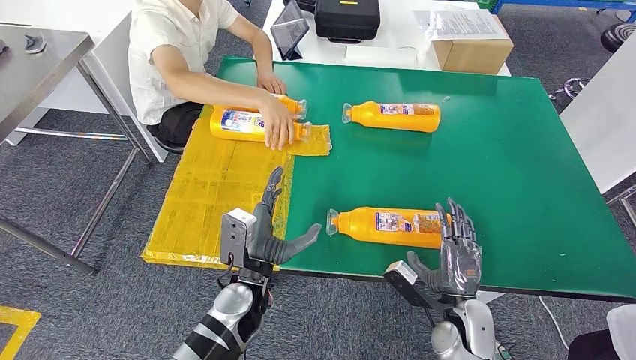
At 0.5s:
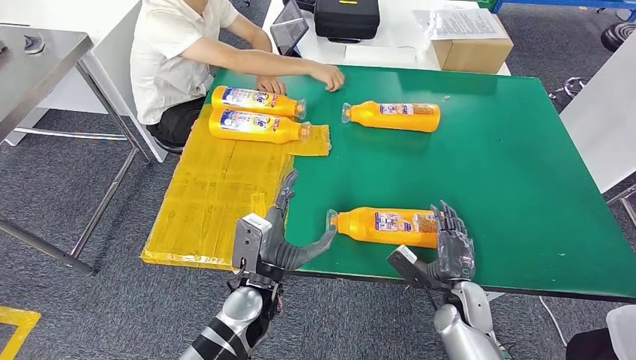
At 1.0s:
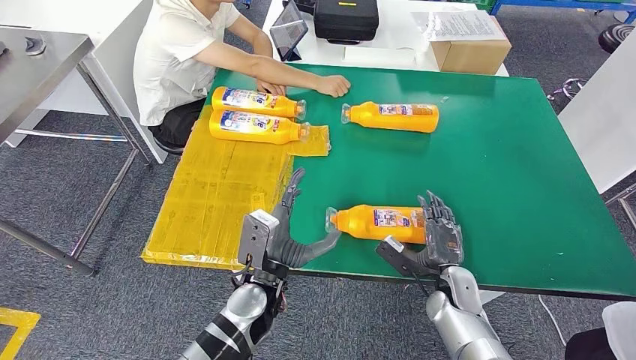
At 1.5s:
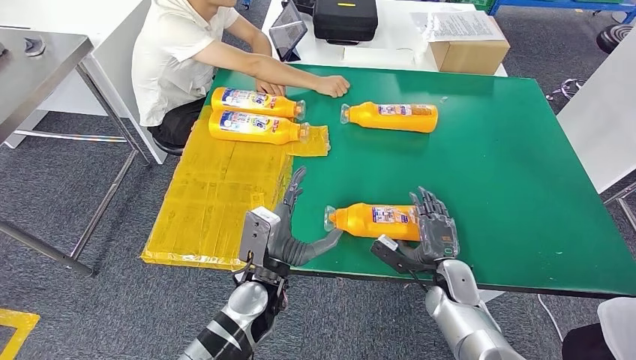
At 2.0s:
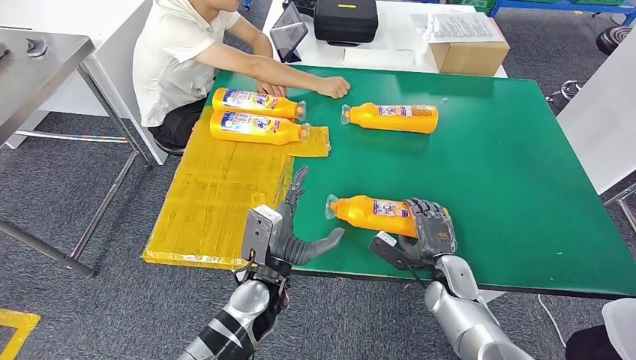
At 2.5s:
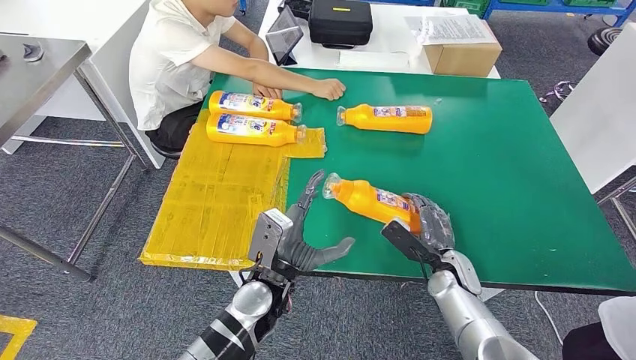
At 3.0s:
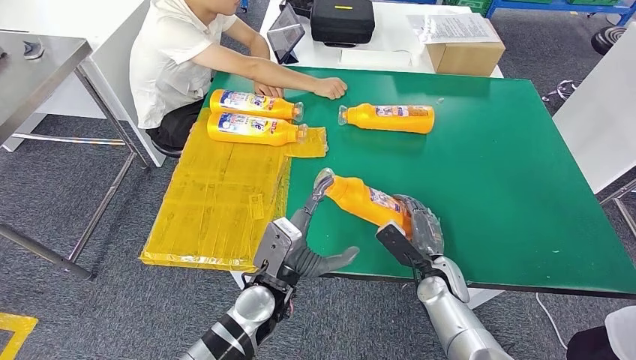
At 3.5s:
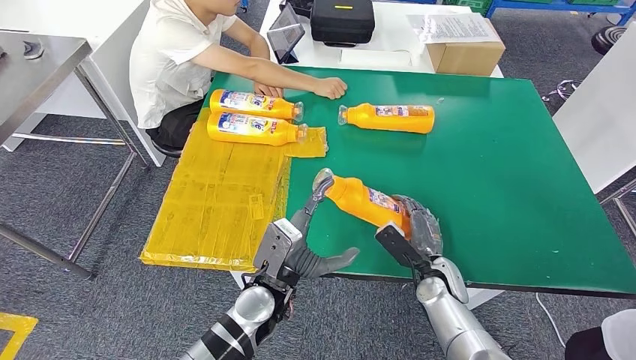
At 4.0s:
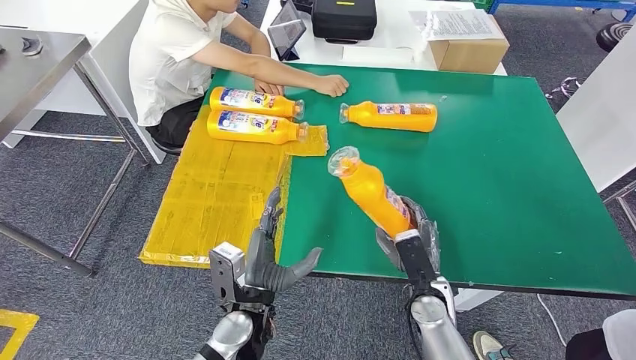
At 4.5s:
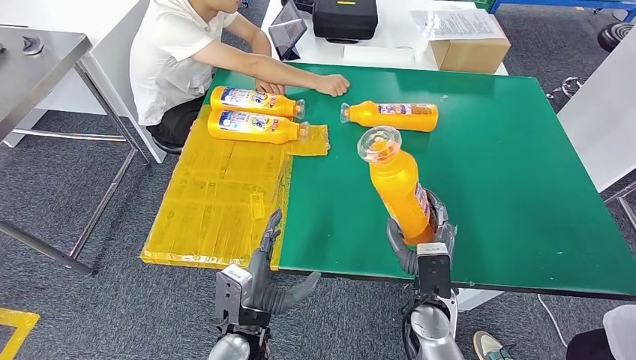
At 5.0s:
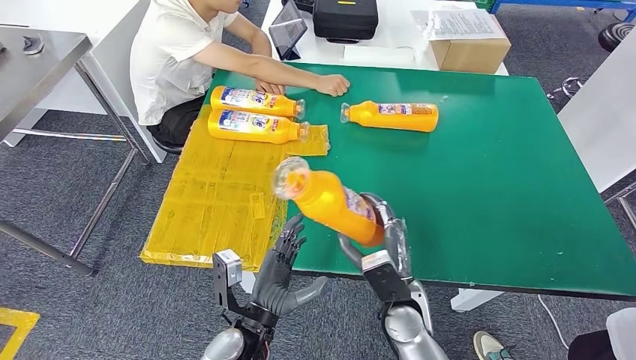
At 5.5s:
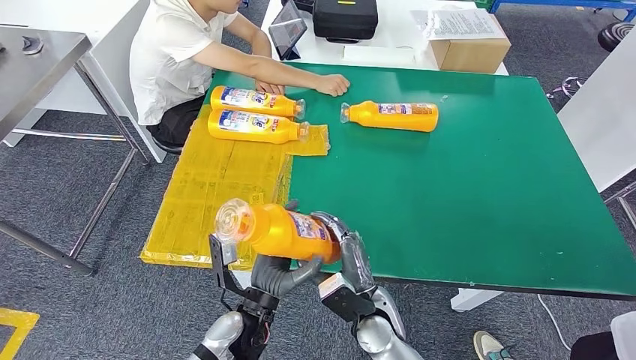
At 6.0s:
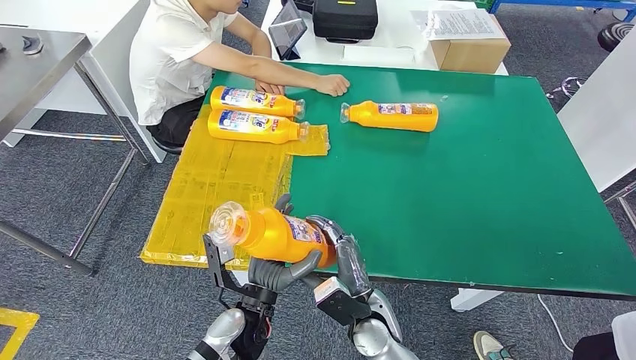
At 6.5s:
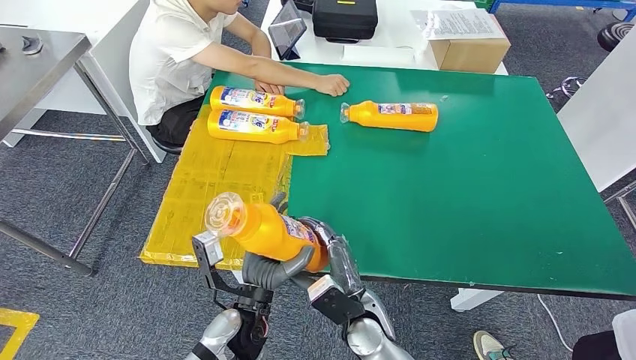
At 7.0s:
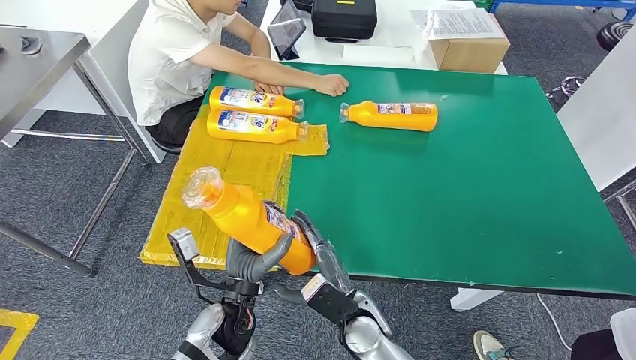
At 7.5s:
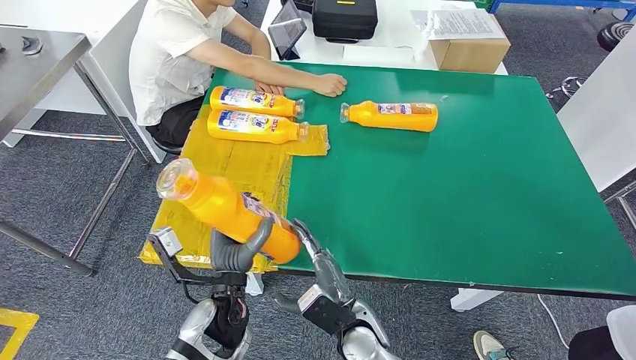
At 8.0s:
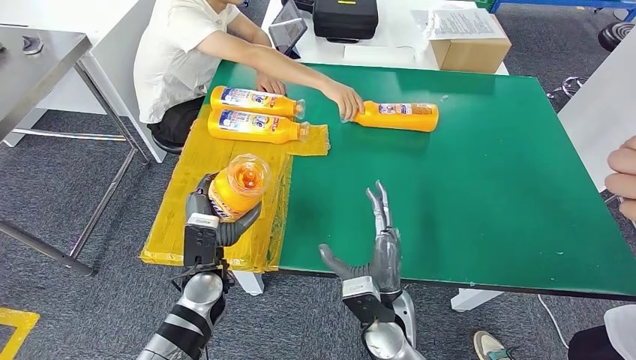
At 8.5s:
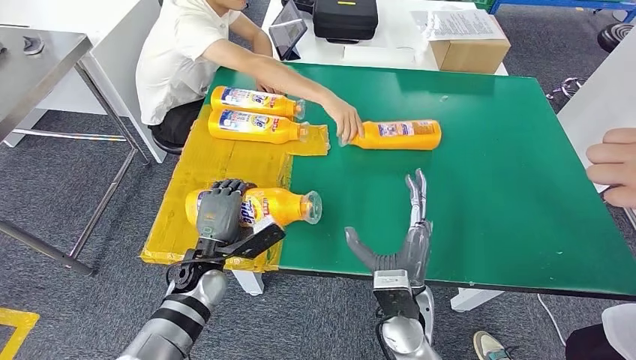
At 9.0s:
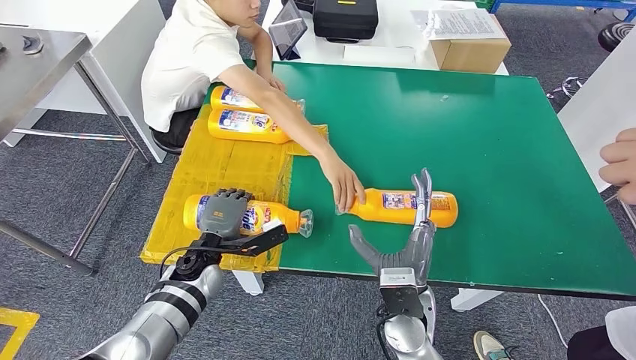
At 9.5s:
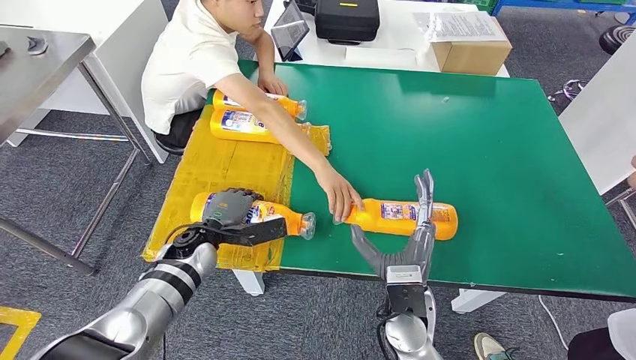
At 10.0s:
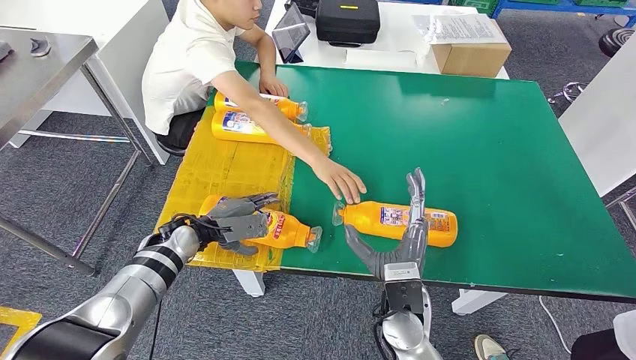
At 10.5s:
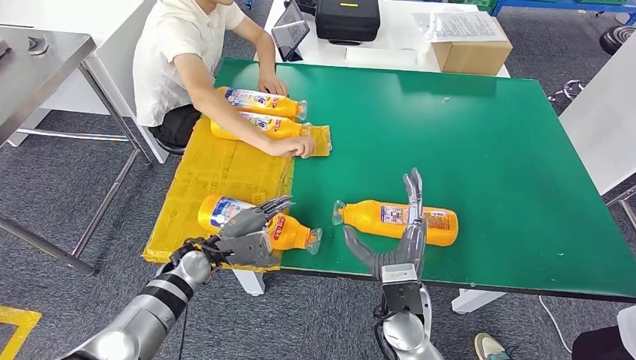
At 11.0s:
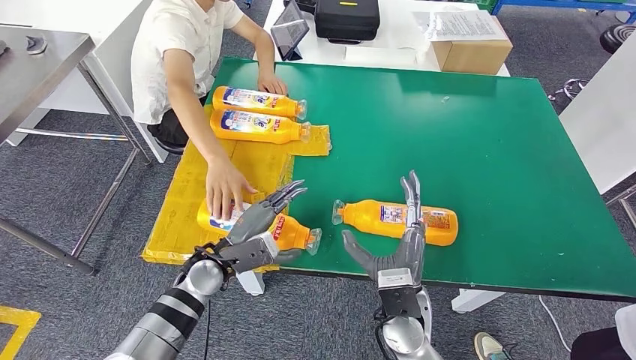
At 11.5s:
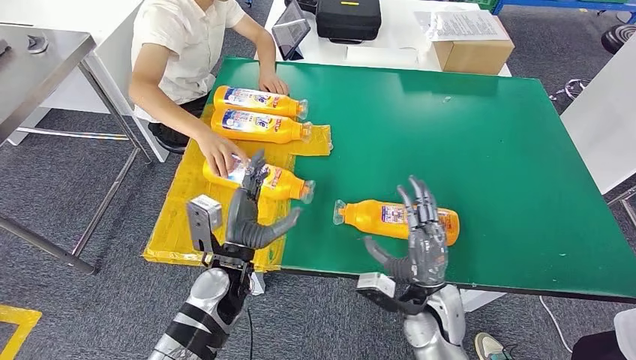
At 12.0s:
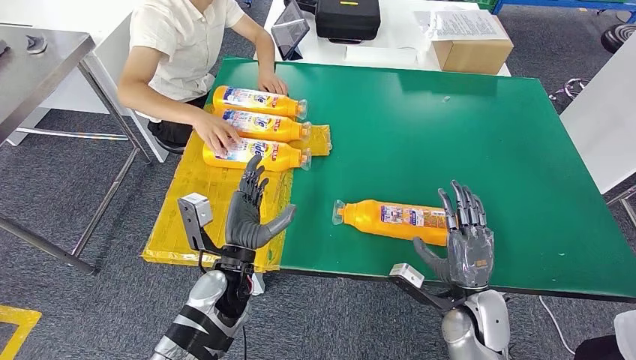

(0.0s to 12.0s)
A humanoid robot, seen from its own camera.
Step, 0.0s - 2.0s: Pick up the fast-moving consumer goods bottle from the table.
Step, 2.5s - 8.5s: Flip the fast-moving consumer goods bottle to the front side.
2.0s - 4.0s: The right hand travels to the left by some 5 cm, while the left hand shifts by some 5 cm.
4.0s - 6.0s: The right hand moves to the left, approximately 10 cm.
6.0s - 8.0s: The left hand moves to the left and forward, about 10 cm.

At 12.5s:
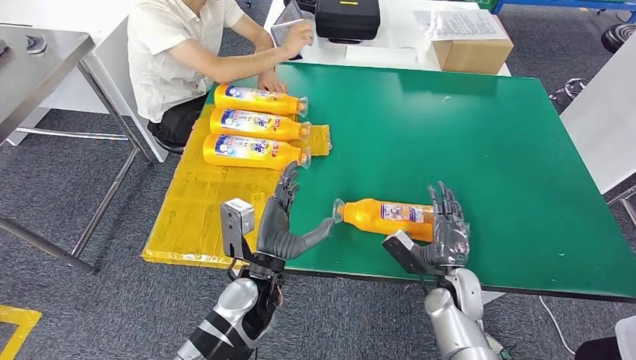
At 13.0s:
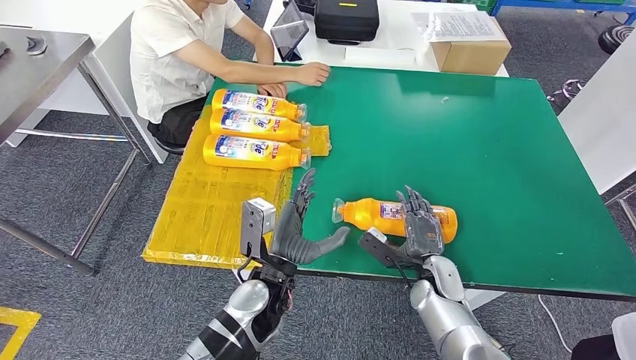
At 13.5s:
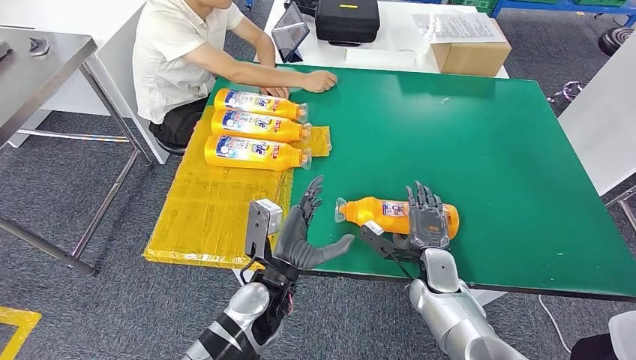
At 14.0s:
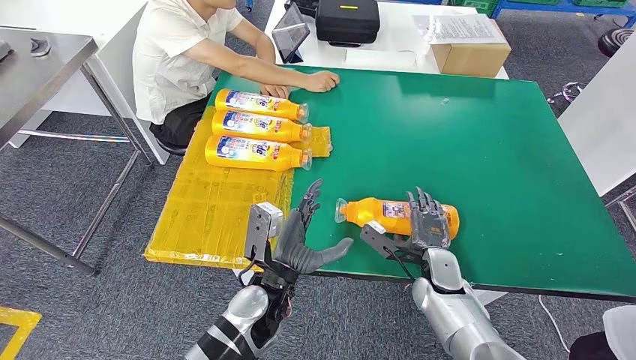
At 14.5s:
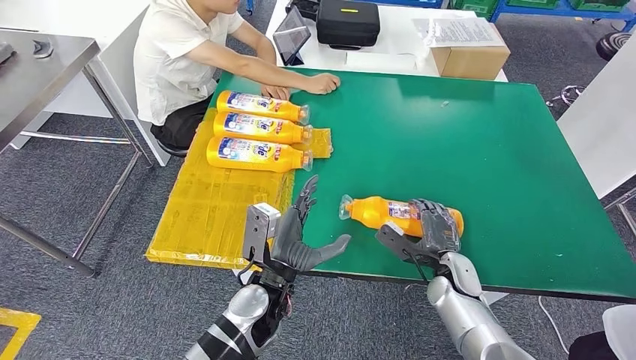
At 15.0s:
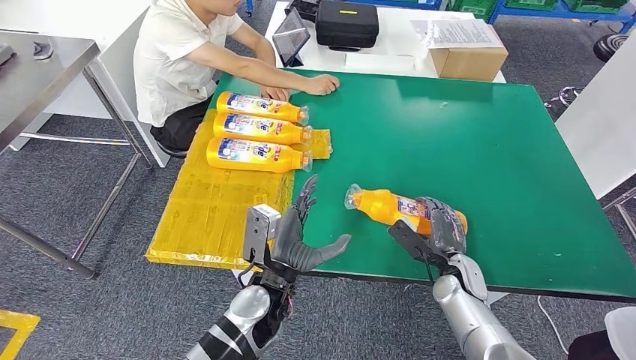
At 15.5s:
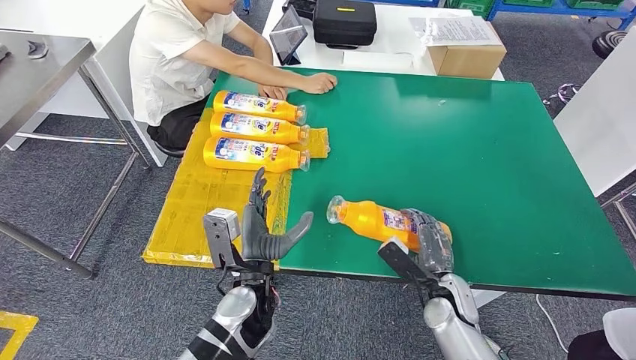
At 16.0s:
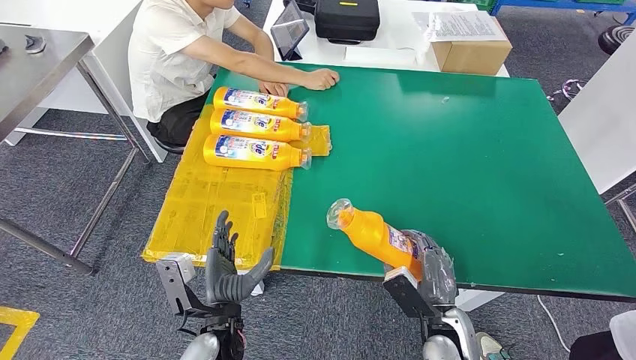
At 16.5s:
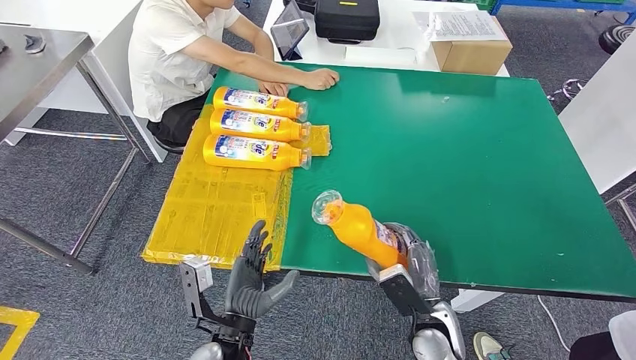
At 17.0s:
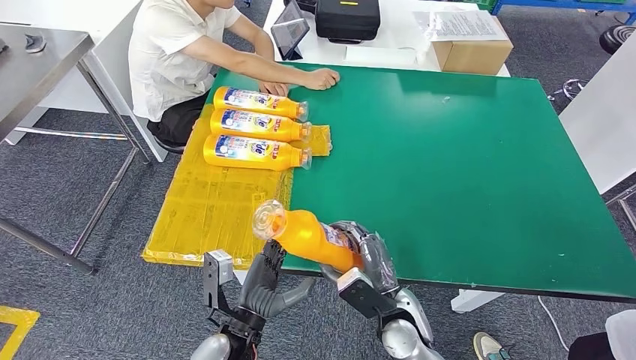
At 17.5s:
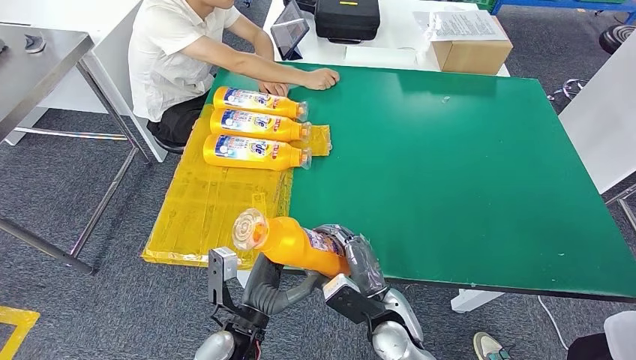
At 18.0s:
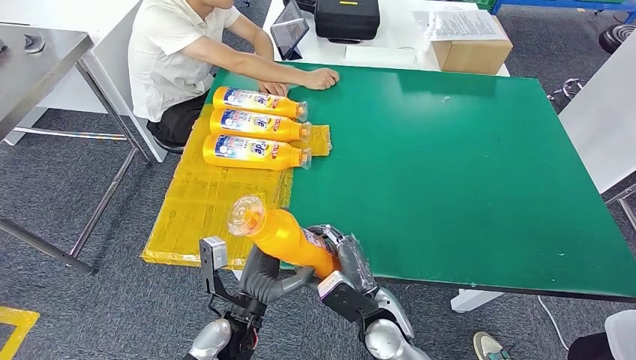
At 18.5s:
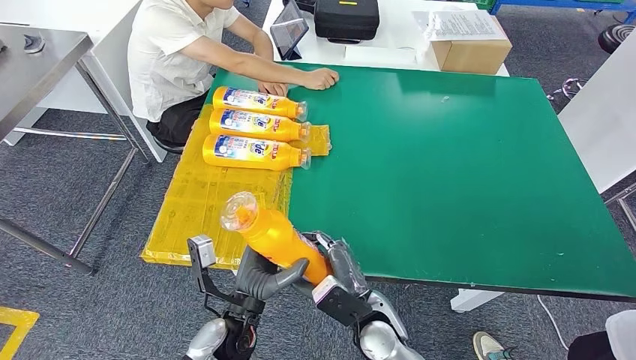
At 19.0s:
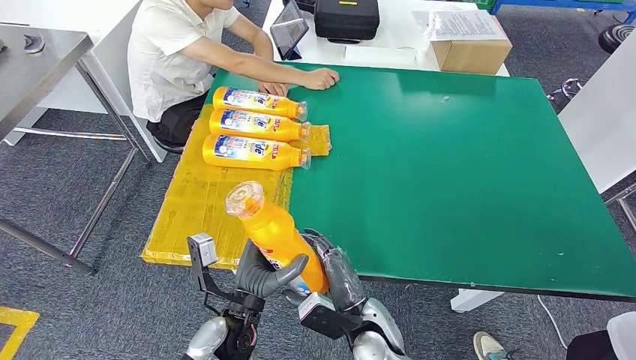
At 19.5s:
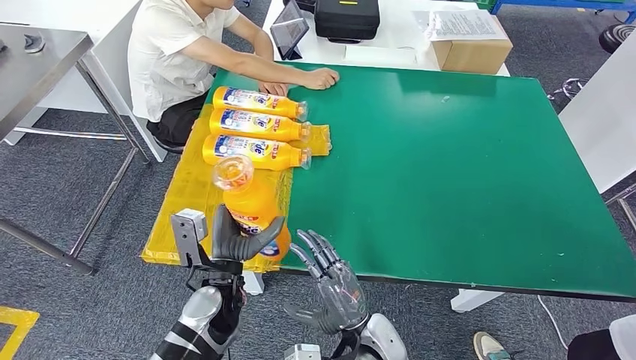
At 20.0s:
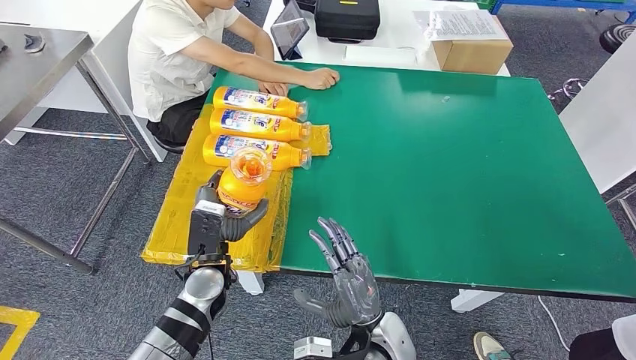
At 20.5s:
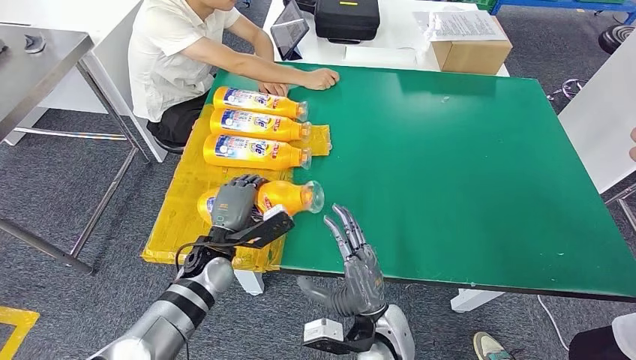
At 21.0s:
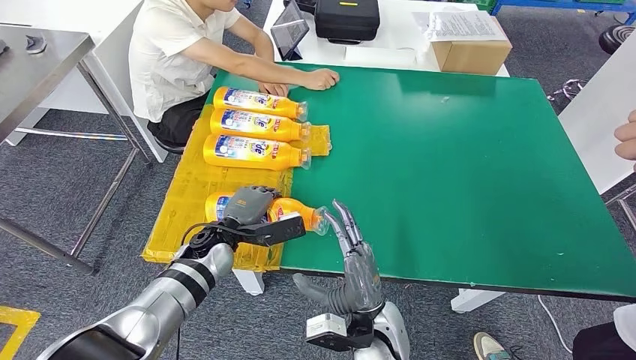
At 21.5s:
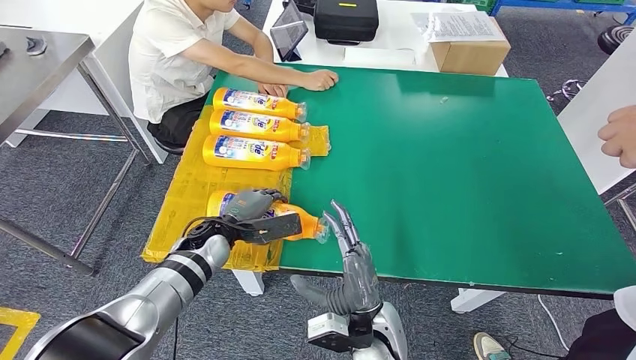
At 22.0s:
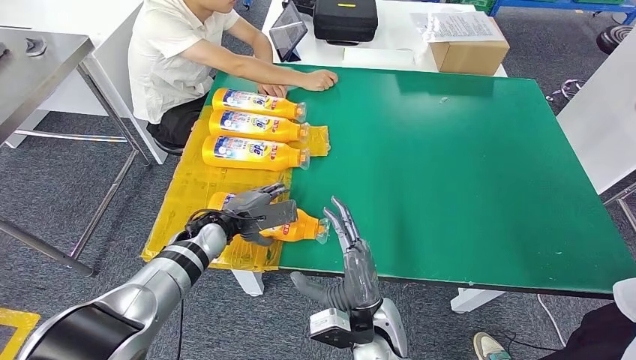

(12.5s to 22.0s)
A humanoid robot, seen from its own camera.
Step, 12.5s - 18.0s: Pick up the fast-moving consumer goods bottle from the table.
Step, 18.5s - 22.0s: Flip the fast-moving consumer goods bottle to the front side.
16.5s - 18.0s: The right hand heads to the left, covering some 10 cm.
18.0s - 20.0s: The left hand moves forward and to the left, some 10 cm.
20.0s - 22.0s: The left hand moves forward, approximately 10 cm.
